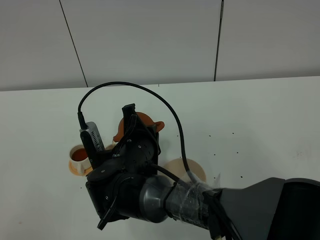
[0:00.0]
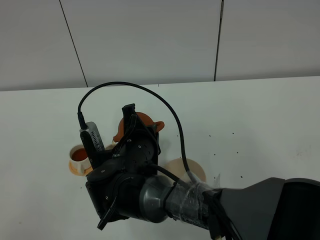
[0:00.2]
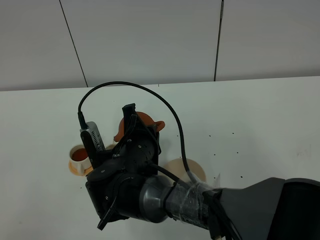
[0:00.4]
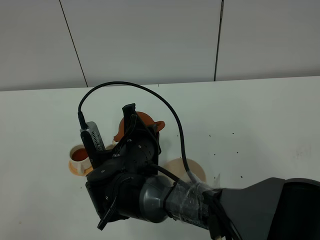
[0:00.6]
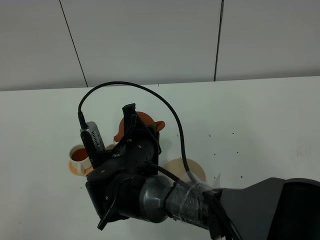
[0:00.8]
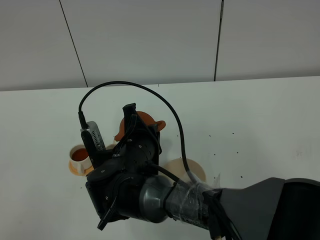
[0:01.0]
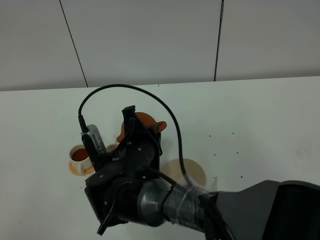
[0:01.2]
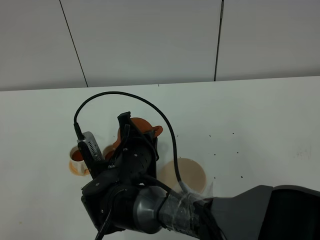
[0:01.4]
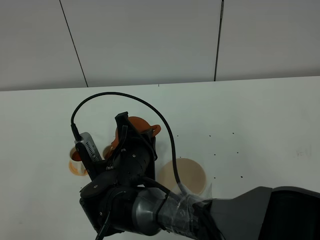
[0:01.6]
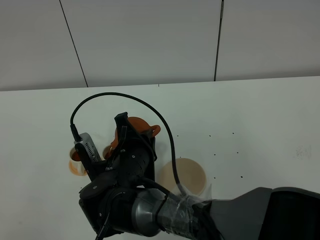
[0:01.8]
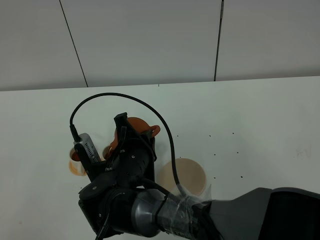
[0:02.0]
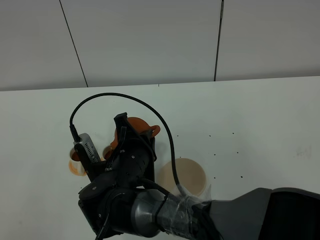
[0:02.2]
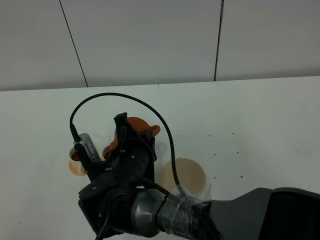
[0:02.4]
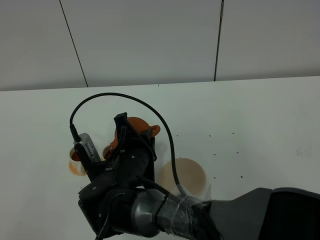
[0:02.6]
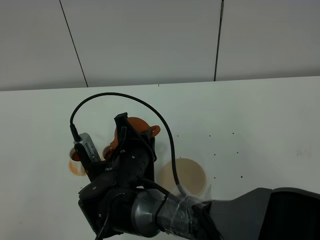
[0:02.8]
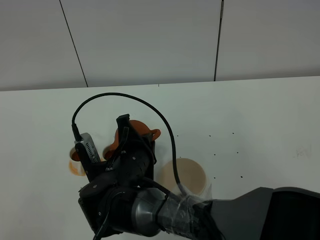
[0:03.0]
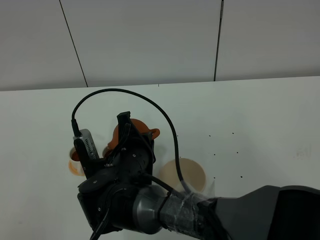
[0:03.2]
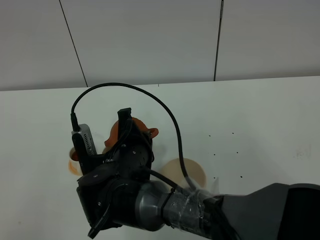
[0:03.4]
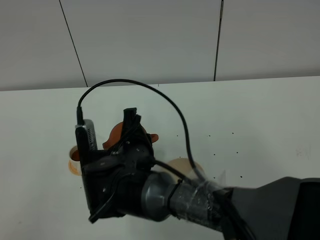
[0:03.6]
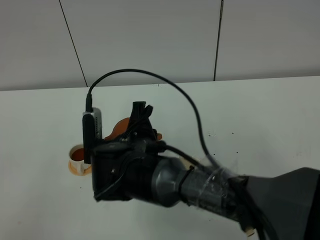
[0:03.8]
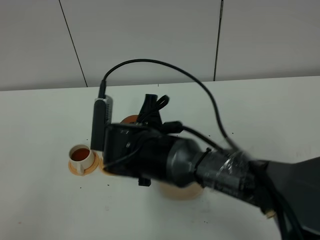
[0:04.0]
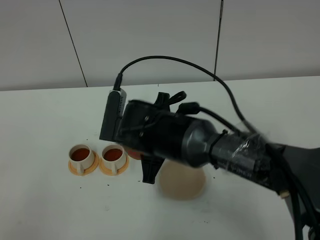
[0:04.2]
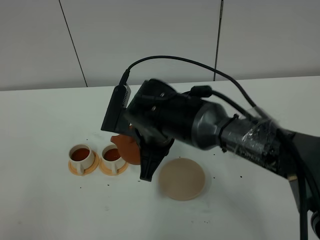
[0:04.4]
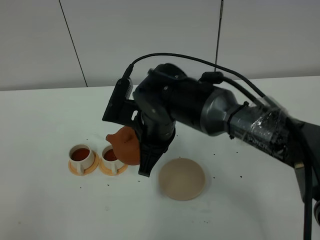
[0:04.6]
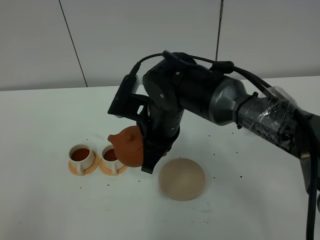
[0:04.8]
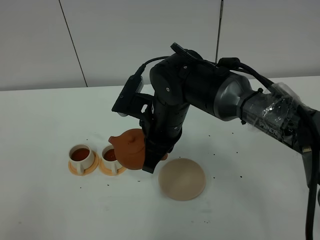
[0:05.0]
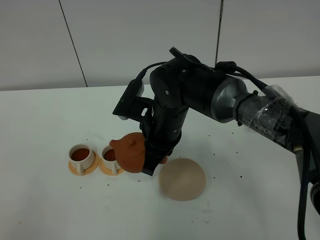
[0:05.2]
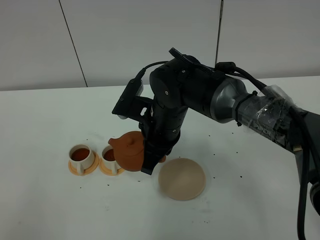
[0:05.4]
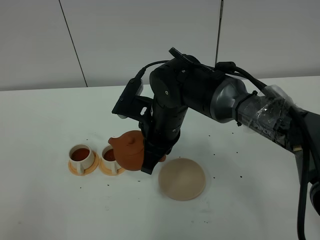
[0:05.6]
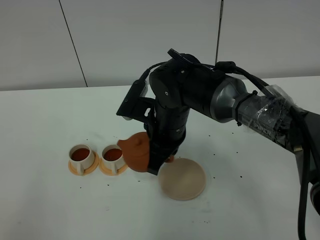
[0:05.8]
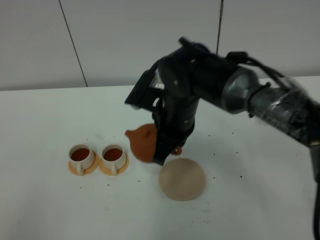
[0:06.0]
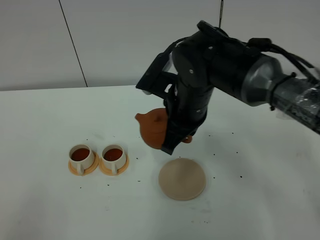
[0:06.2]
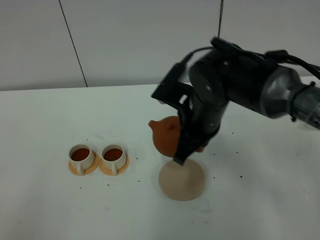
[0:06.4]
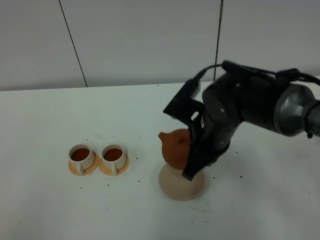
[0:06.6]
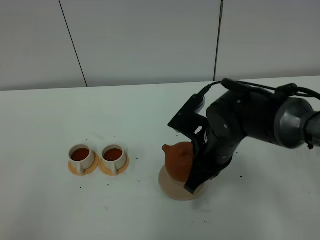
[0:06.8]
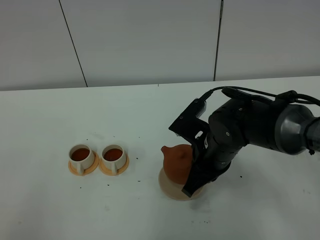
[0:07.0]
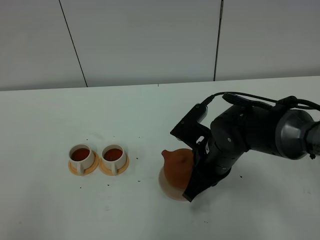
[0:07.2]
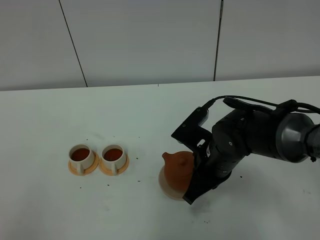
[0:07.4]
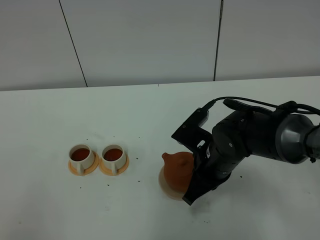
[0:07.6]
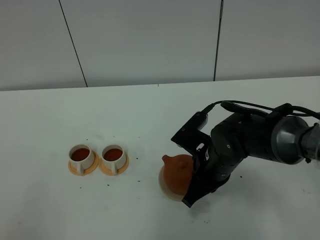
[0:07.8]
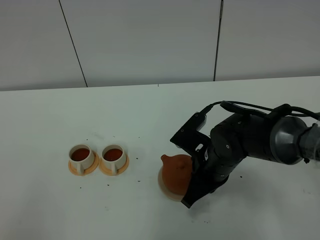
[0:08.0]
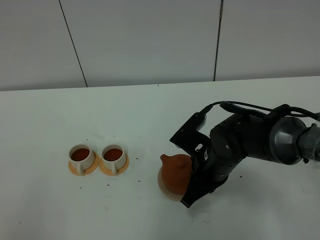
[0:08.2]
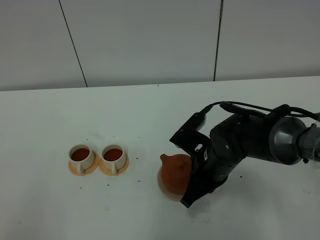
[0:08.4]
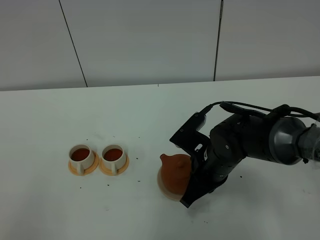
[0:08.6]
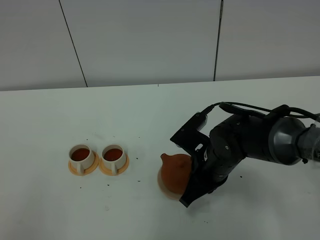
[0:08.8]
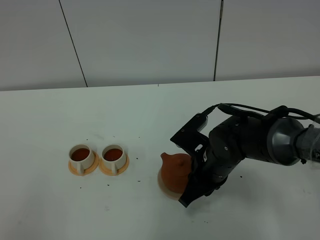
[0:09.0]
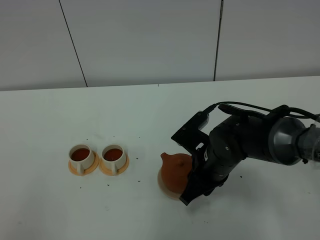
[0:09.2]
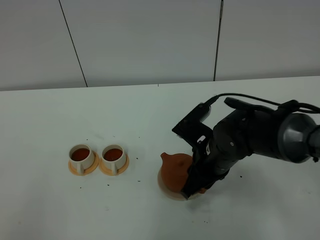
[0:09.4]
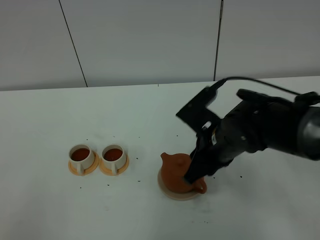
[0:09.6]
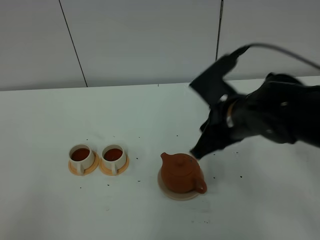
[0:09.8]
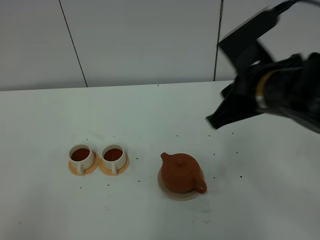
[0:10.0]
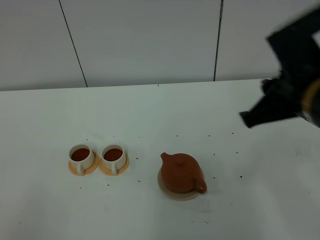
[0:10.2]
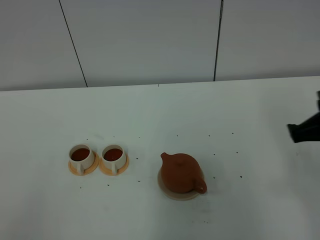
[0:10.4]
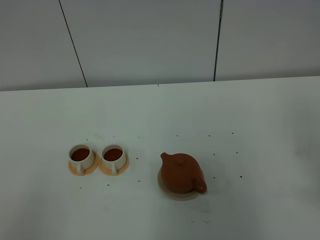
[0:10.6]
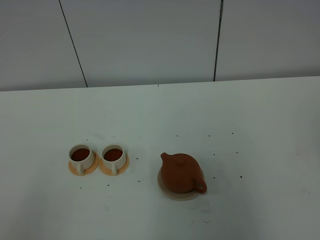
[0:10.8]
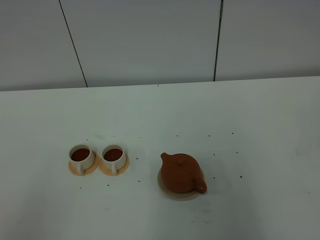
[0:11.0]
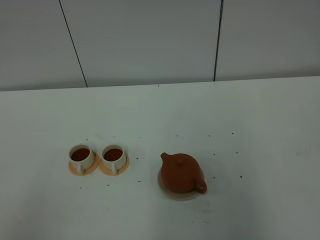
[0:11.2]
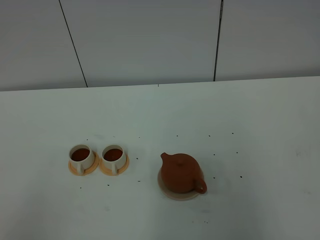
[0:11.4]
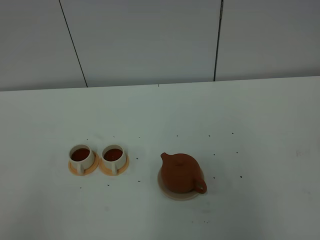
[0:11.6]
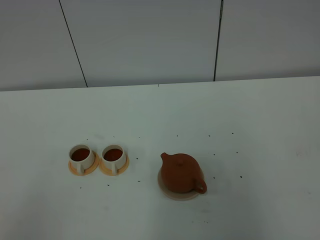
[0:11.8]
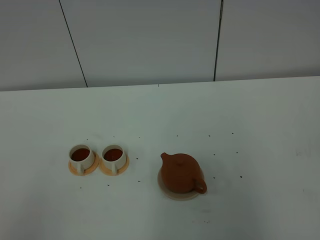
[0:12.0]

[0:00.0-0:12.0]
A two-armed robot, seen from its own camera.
Task of the whole recording: grasp the brown teapot and pour the tea into the two white teacups one by one, put the brown teapot back in its original place.
Step, 0:00.0 to 0:05.4: Pour tea into the teacup with the right gripper.
0:00.0 to 0:01.6: There are only small adjustments of the grippers.
0:01.6 to 0:03.0: Neither gripper changes place.
0:03.0 to 0:04.4: The right gripper shifts roughly 10 cm upward and to the right.
0:04.4 to 0:06.0: The right gripper moves approximately 5 cm.
0:06.0 to 0:07.6: The right gripper moves downward and to the right, some 10 cm.
0:07.6 to 0:09.0: The right gripper opens up.
0:09.0 to 0:10.4: The right gripper shifts about 25 cm upward, to the right and backward.
0:10.4 to 0:12.0: The right gripper heads backward and to the right, covering some 15 cm.

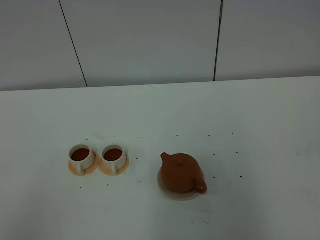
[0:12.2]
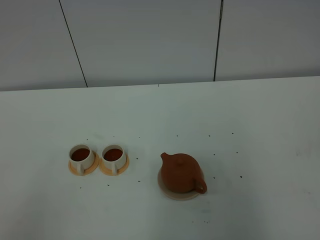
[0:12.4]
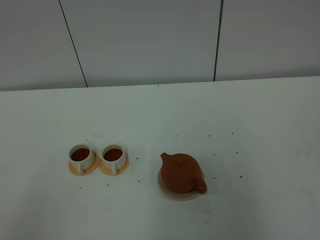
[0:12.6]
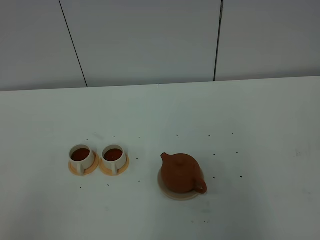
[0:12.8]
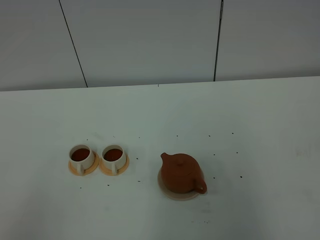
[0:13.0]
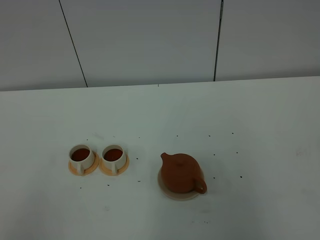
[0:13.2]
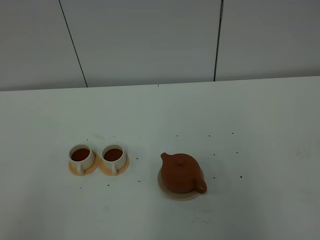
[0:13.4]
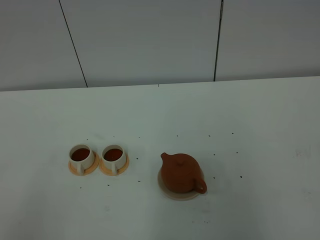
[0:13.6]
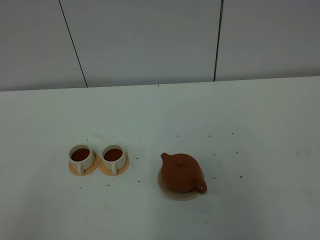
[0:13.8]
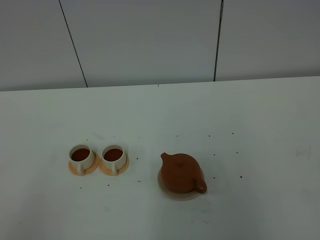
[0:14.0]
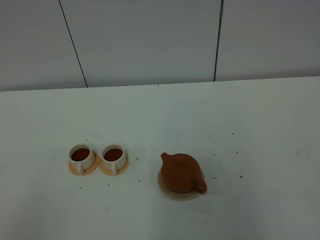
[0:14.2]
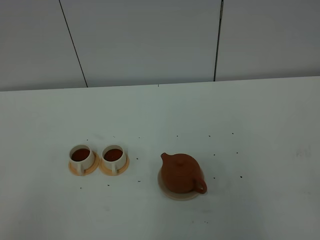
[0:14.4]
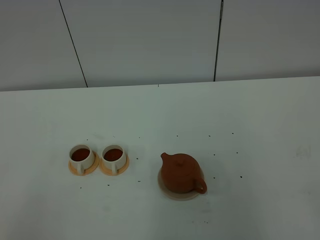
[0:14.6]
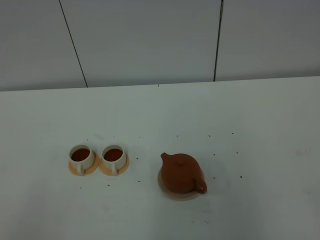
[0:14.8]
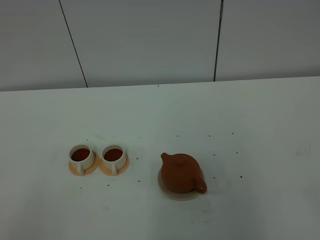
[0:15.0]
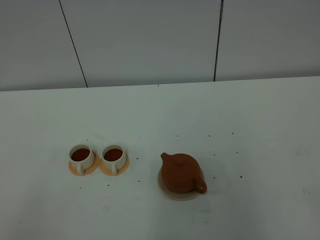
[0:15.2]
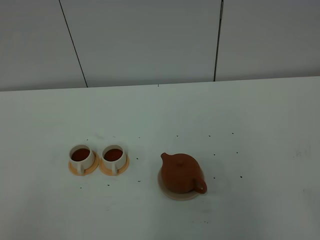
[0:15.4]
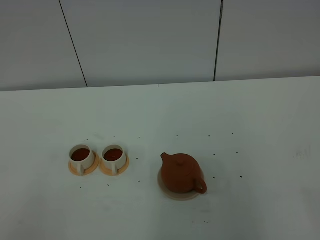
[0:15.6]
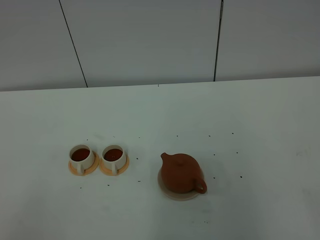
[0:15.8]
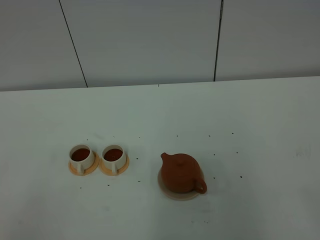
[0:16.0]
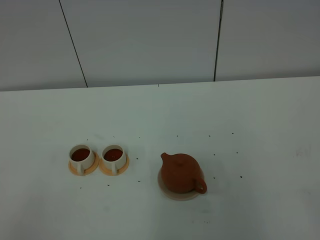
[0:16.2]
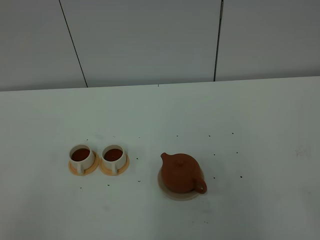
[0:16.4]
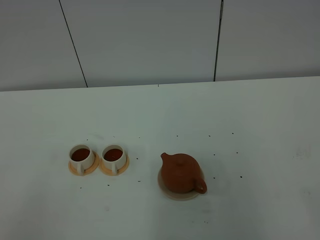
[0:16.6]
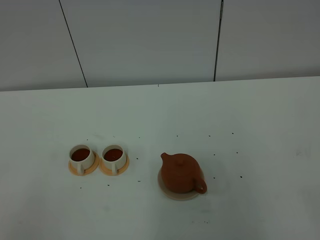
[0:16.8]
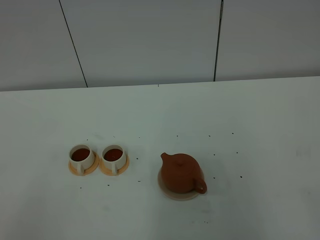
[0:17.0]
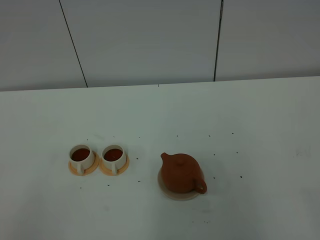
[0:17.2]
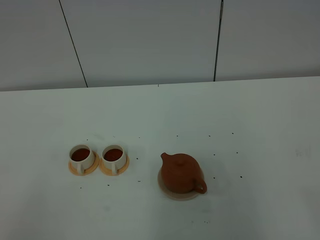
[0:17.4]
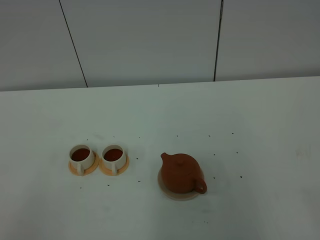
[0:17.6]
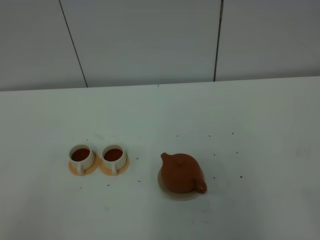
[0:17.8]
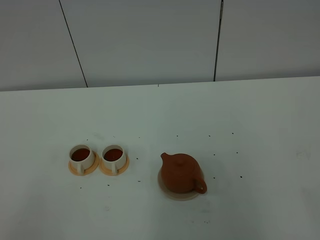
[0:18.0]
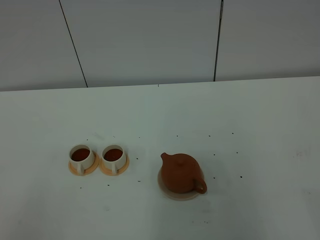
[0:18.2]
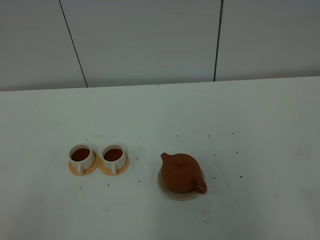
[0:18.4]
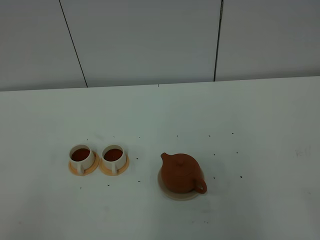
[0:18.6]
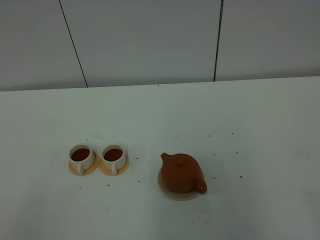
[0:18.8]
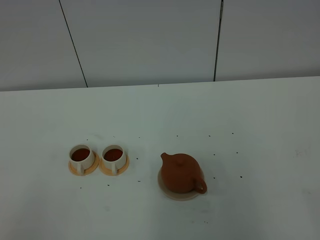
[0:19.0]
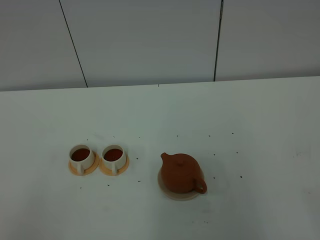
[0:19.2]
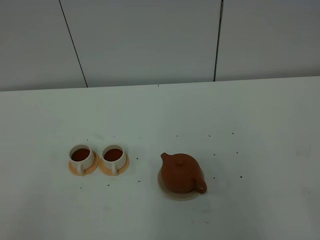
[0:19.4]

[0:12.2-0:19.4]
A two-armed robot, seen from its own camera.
Task of the whole recording: grasp the brown teapot and pour the tea into the two white teacups one by one, put the brown teapot back in its original place.
0:16.6 to 0:19.4: The two grippers keep their place.

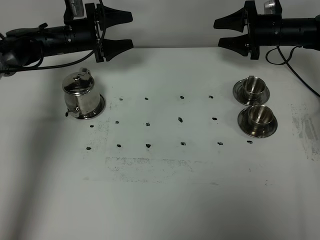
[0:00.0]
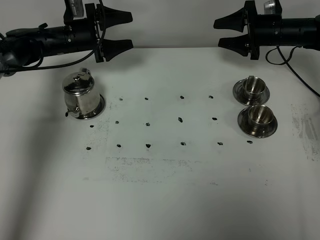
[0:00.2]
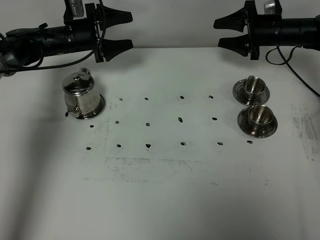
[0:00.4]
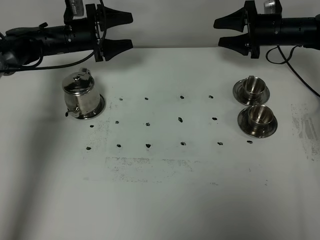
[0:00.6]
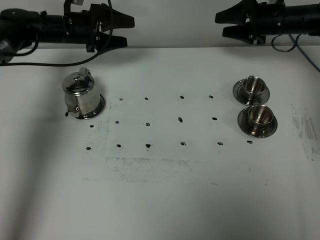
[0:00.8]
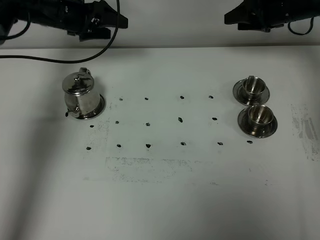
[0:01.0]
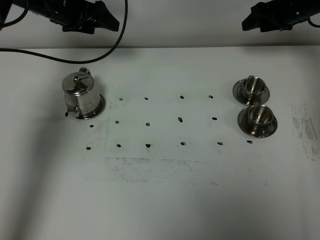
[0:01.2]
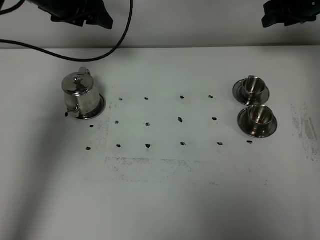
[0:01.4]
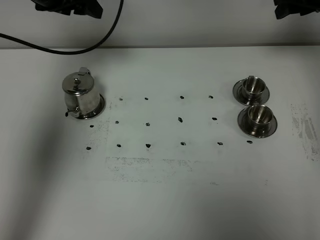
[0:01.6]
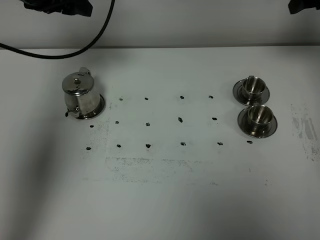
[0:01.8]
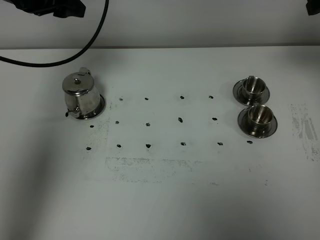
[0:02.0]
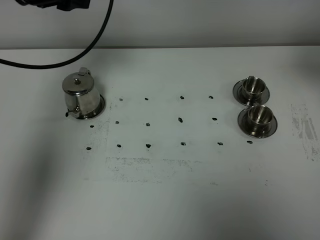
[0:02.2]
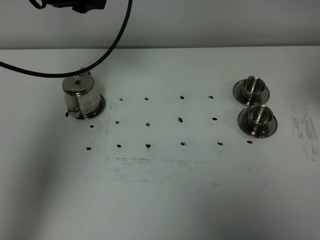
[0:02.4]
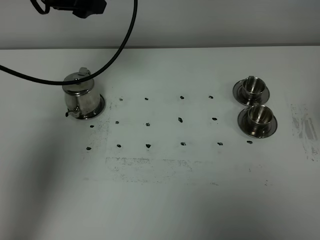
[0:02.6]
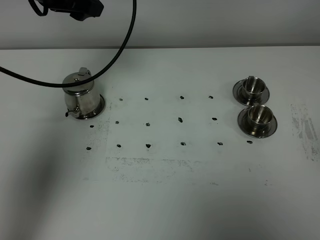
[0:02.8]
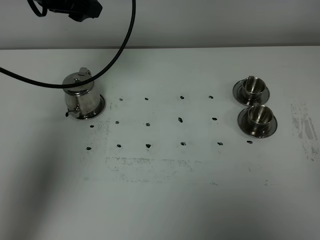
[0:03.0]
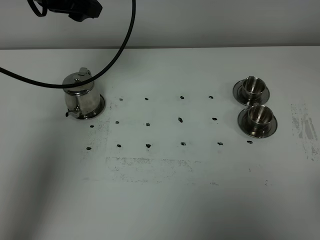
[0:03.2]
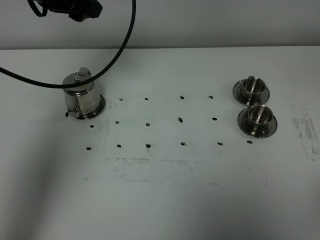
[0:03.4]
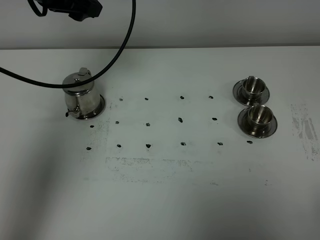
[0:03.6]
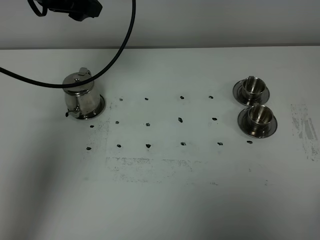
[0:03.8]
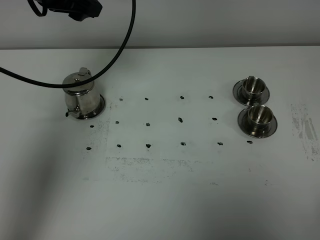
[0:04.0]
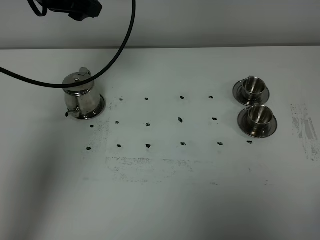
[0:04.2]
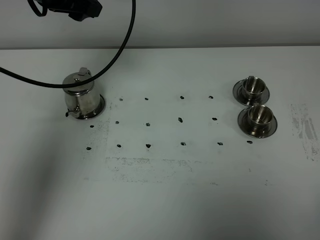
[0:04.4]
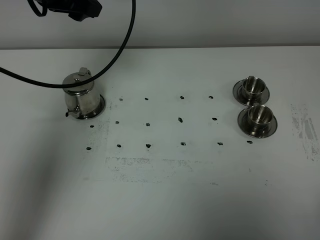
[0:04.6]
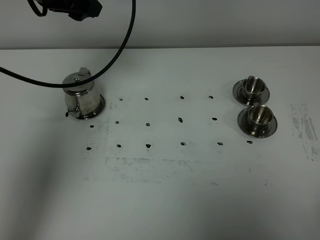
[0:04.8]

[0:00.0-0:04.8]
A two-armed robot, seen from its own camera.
Task of the whole recording: grasp the stainless steel teapot and pour the tea into the two stainless steel teacups one by one, put the stainless steel teapot back in its original place.
0:00.0 to 0:01.6: Both grippers move upward, roughly 15 cm.
0:01.6 to 0:03.2: The right gripper heads backward, covering about 50 cm. Meanwhile the left gripper shifts roughly 5 cm backward.
